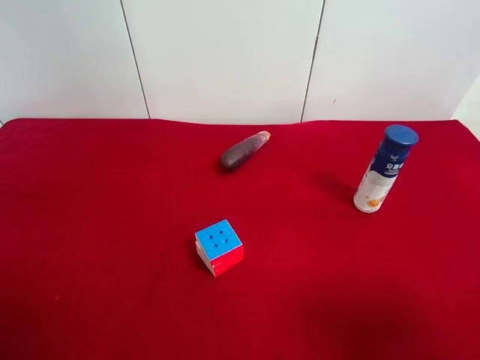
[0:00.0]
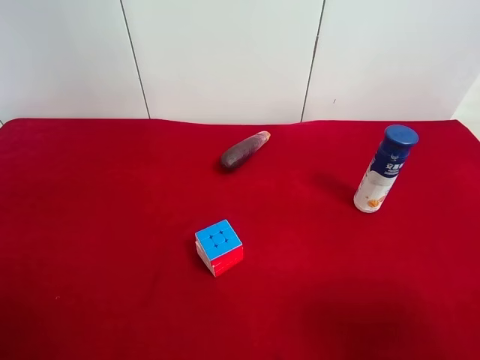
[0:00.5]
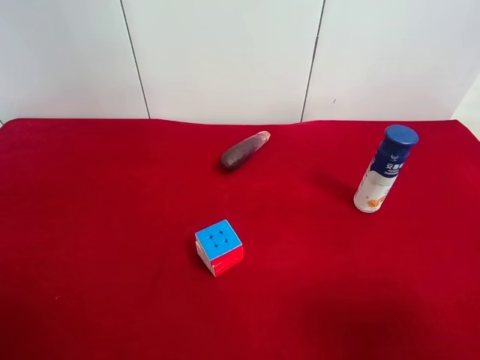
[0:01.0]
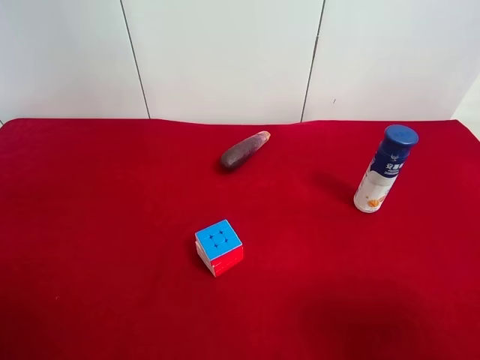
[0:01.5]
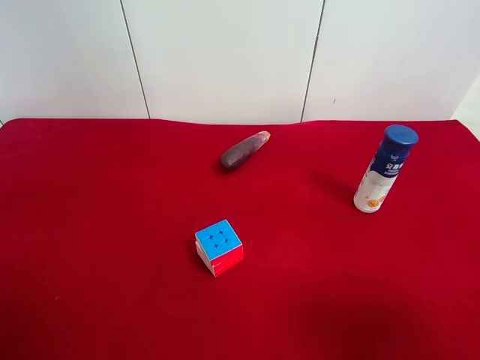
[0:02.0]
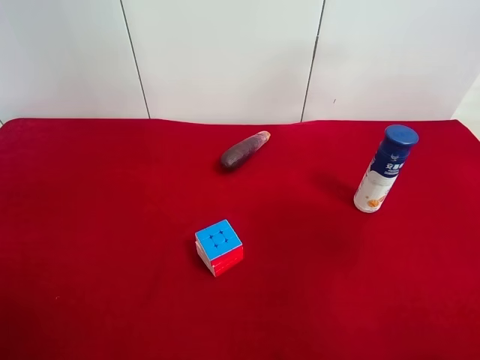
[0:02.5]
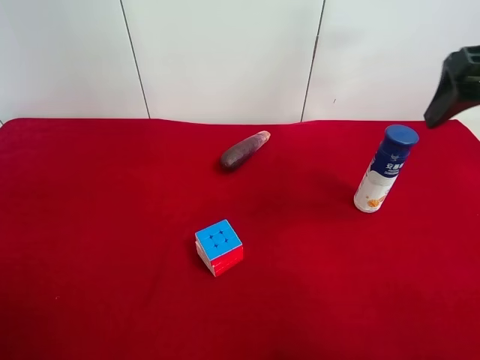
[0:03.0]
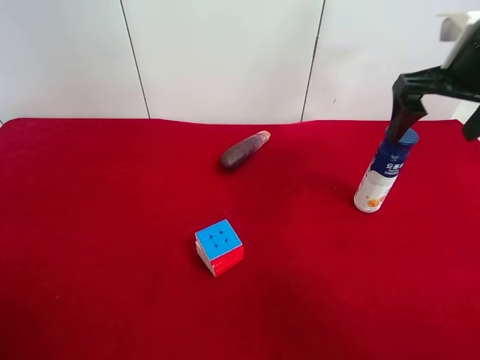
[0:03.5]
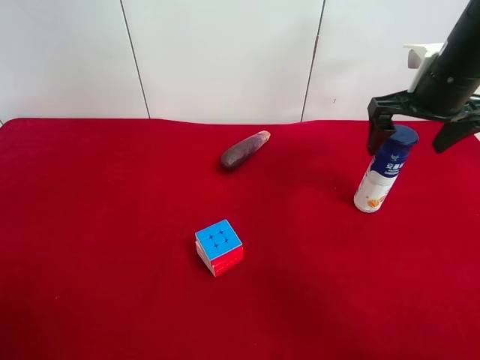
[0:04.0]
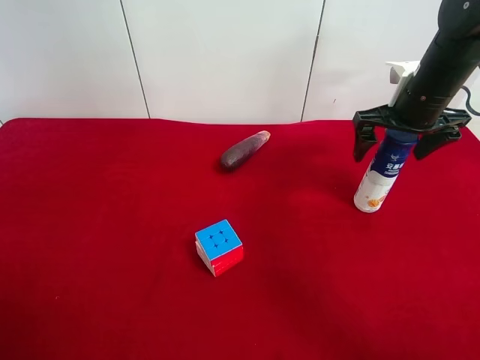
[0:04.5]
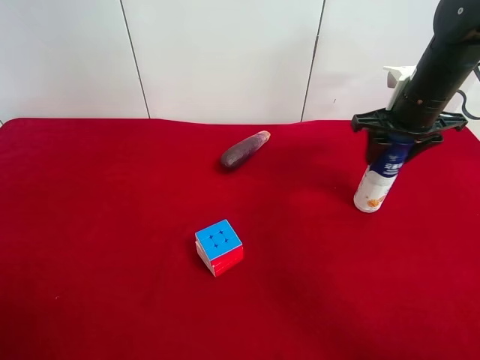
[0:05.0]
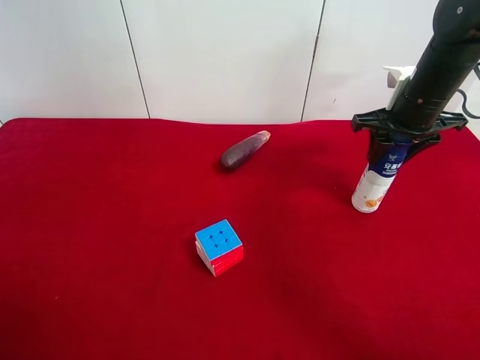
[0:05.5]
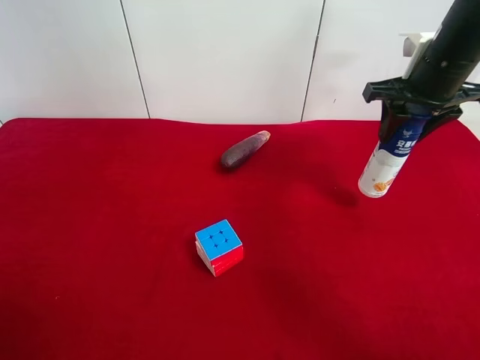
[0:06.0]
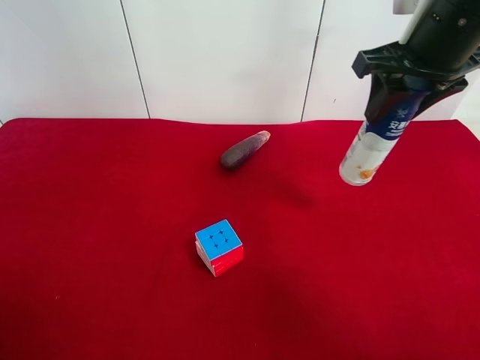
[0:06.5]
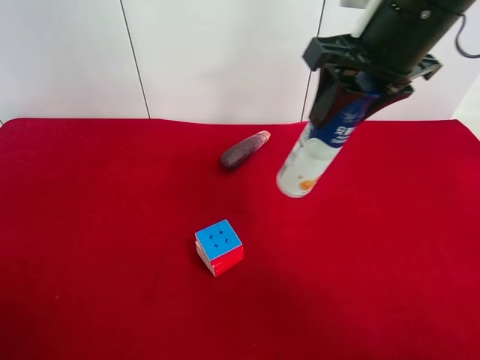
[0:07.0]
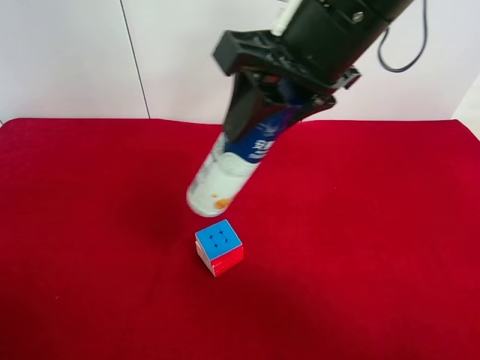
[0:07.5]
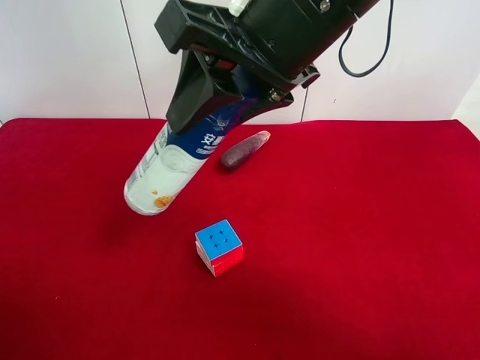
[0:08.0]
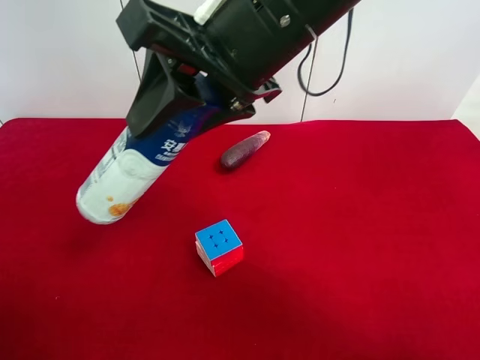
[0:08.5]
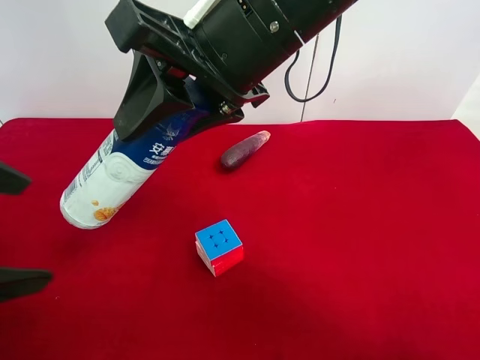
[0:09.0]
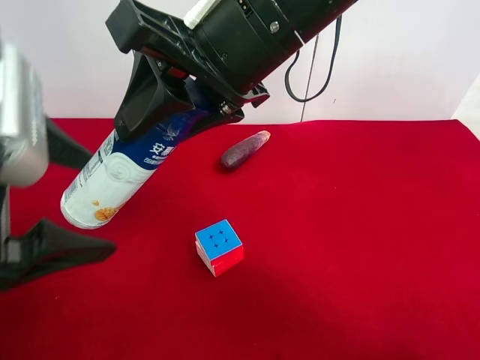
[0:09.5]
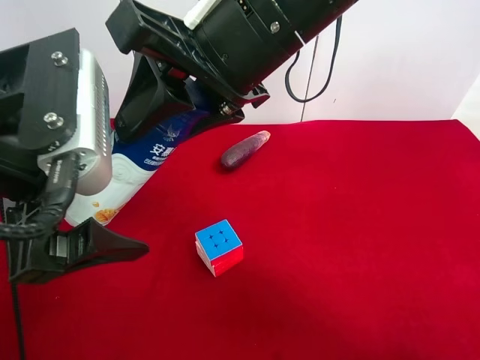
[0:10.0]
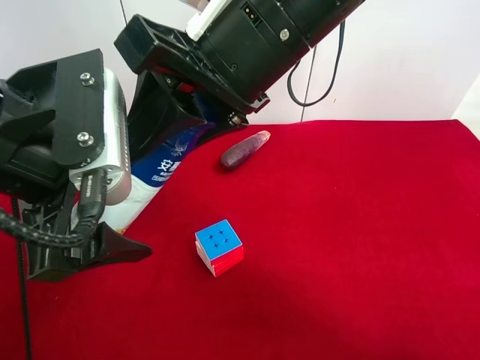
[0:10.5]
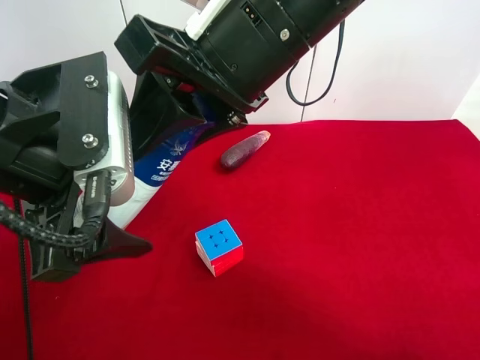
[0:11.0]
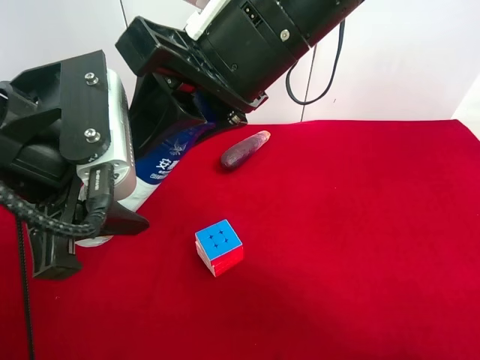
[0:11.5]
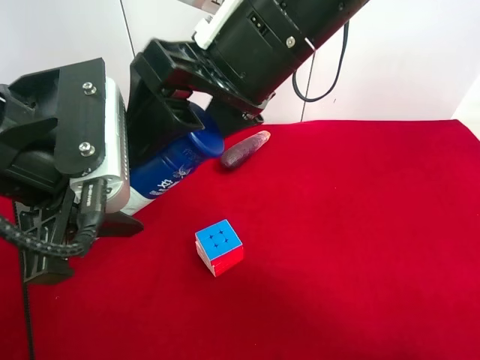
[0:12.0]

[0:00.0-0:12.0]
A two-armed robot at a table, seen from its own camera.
Task of the whole recording: use the right gripper to pick up the item and transfer it from the right gripper to the left gripper.
Step, 0:00.0 to 0:05.0: Use the right gripper to grab the yogurt on the right side of the table.
0:00.0 to 0:02.0: Both grippers stay put.
0:02.0 to 0:04.0: The right gripper travels forward by roughly 35 cm.
0:04.0 to 0:06.0: The right gripper closes.
0:06.0 to 0:08.0: The left gripper changes place by approximately 5 cm. Meanwhile the right gripper travels to the left and backward by approximately 25 cm.
0:08.0 to 0:10.0: The left gripper moves to the right and forward, some 15 cm.
0:10.0 to 0:12.0: The right gripper opens. The left gripper closes its fingers.

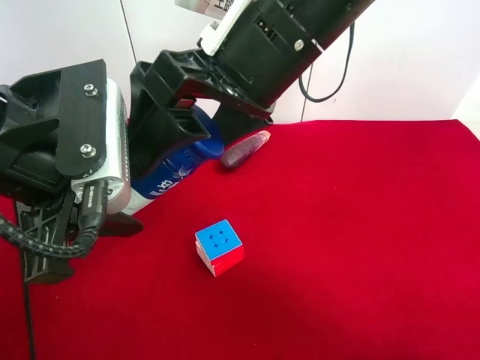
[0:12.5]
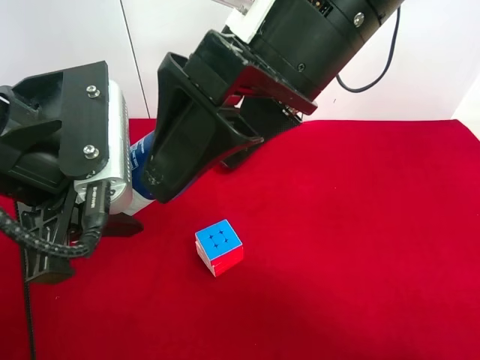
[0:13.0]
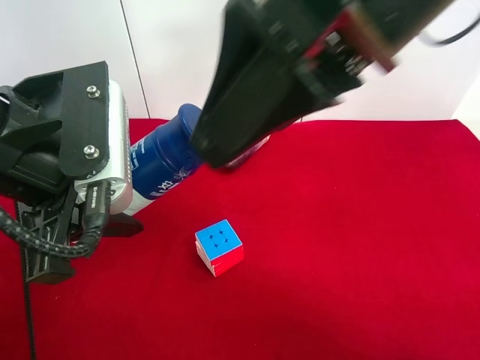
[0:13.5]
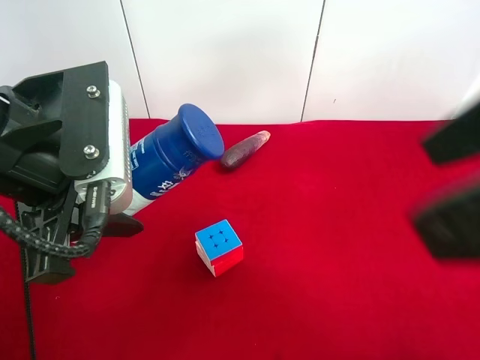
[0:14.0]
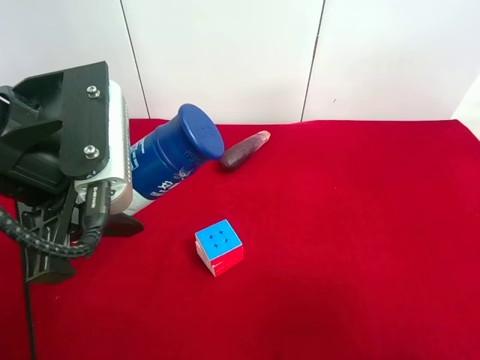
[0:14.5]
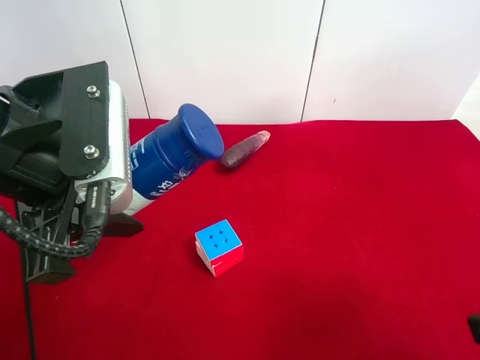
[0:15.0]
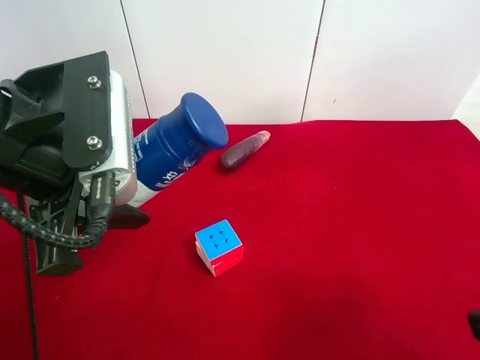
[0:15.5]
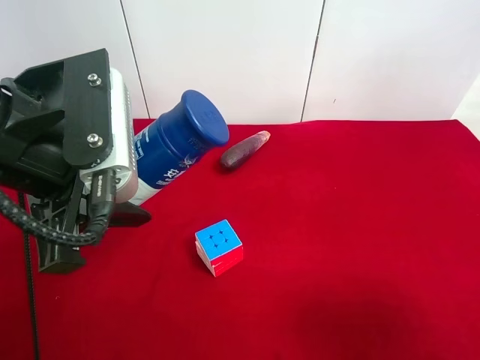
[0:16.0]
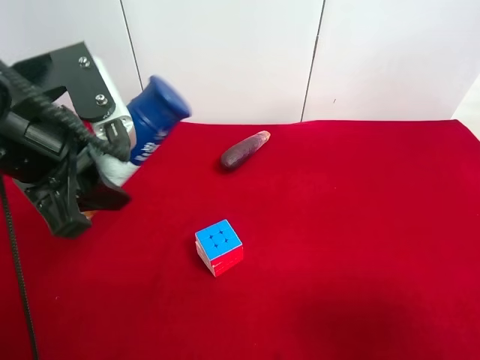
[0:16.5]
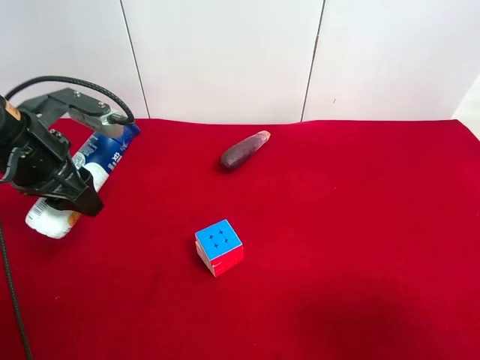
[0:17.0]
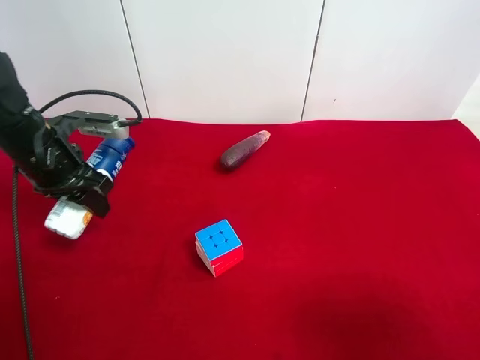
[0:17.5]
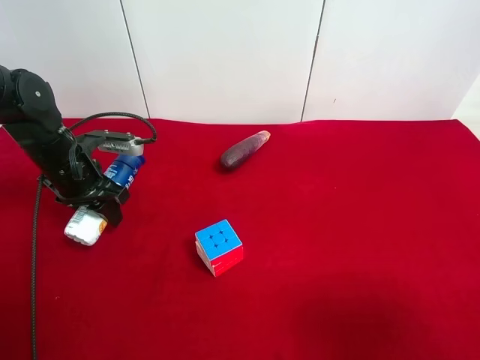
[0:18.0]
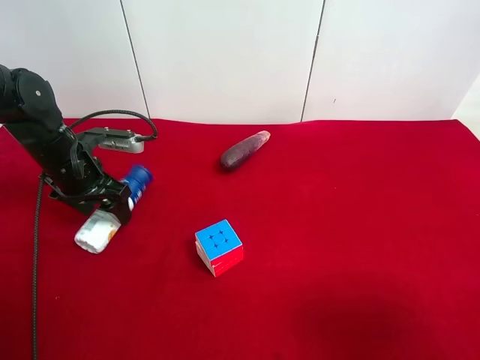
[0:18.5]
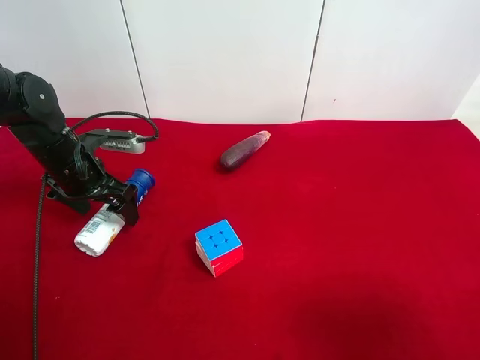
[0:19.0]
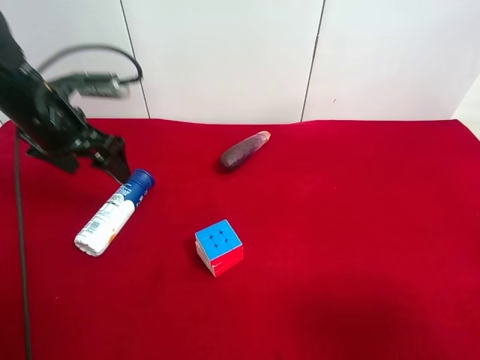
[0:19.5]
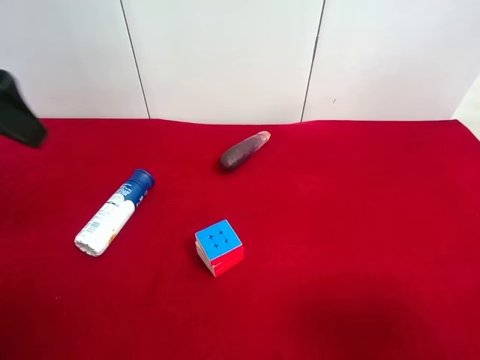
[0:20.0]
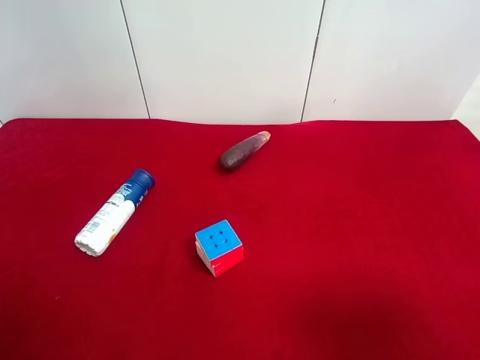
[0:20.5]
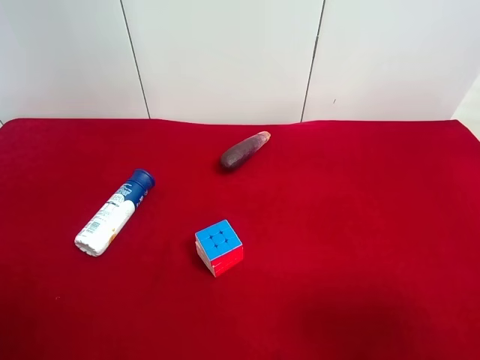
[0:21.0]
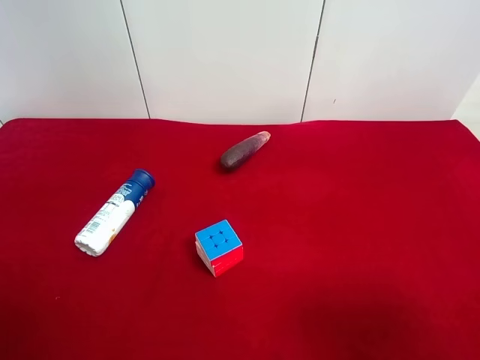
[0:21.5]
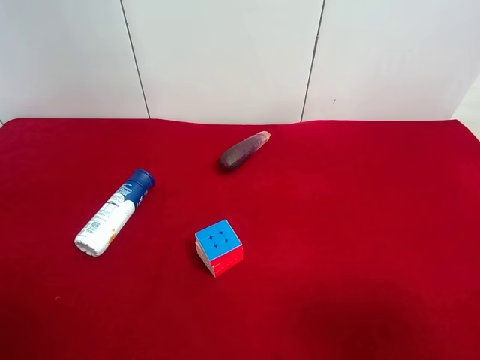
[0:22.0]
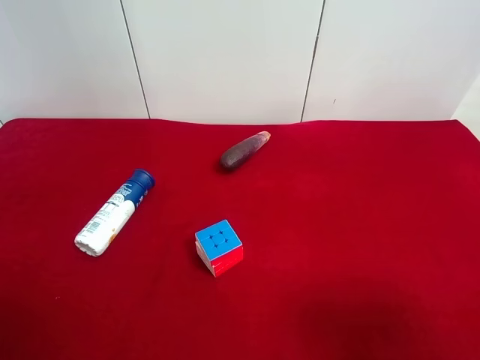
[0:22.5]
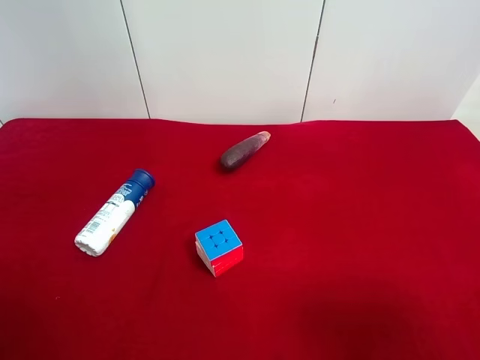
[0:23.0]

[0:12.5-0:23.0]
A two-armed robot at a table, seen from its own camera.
Task of the whole recording: use the right gripper to pick up the item and transfer it from the right gripper to the left gripper.
Step, 0:14.0 to 0:20.0: The left gripper places yogurt on the left side of the table.
0:12.5 to 0:14.5: The right gripper goes about 30 cm to the right and backward.
0:16.5 to 0:19.0: The left gripper travels downward, forward and to the left by some 20 cm, and opens its fingers.
0:19.0 to 0:21.0: The left gripper travels backward and upward by approximately 40 cm.
